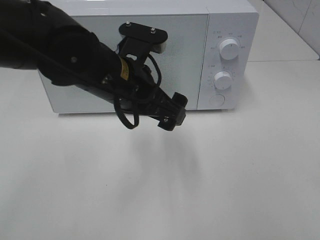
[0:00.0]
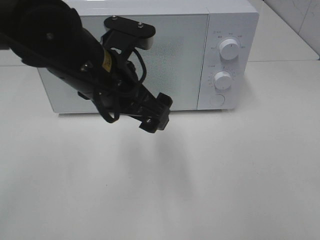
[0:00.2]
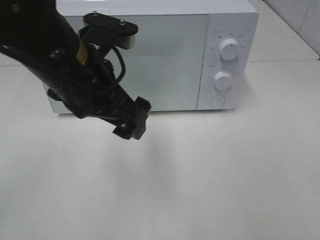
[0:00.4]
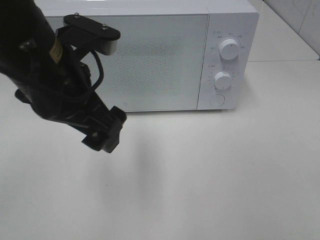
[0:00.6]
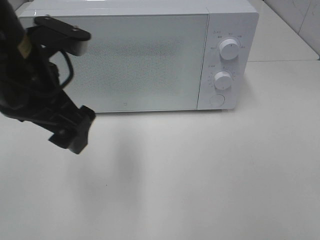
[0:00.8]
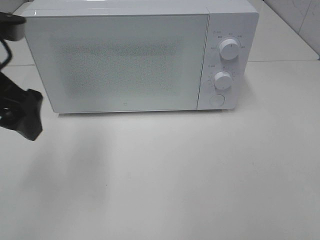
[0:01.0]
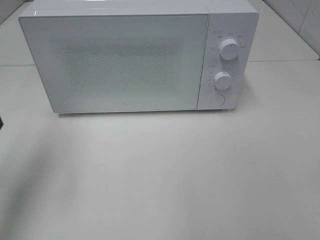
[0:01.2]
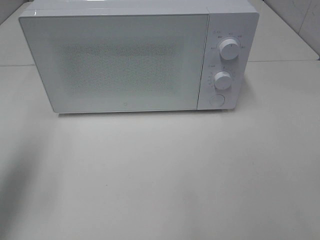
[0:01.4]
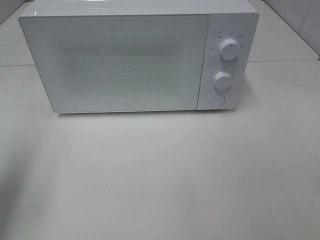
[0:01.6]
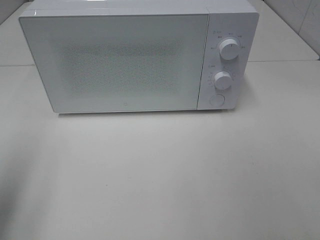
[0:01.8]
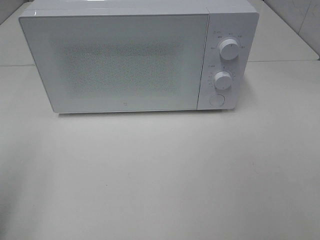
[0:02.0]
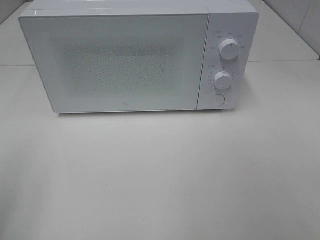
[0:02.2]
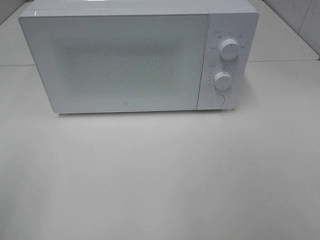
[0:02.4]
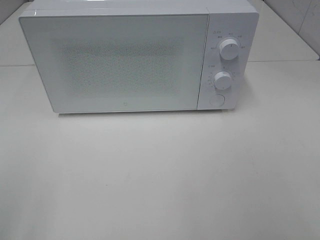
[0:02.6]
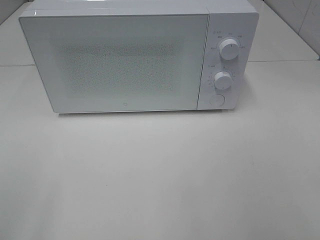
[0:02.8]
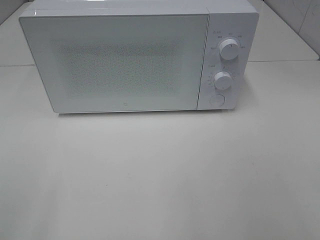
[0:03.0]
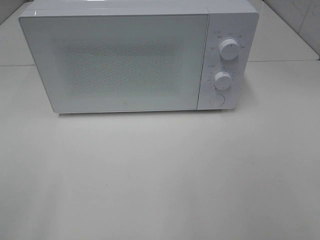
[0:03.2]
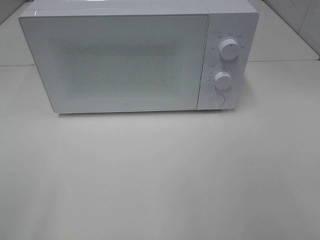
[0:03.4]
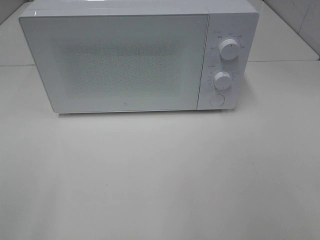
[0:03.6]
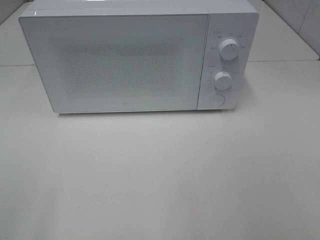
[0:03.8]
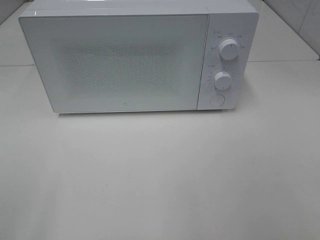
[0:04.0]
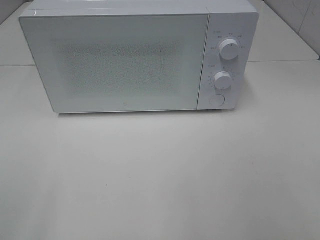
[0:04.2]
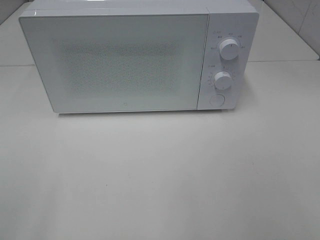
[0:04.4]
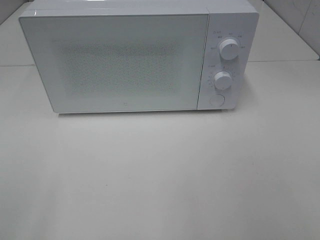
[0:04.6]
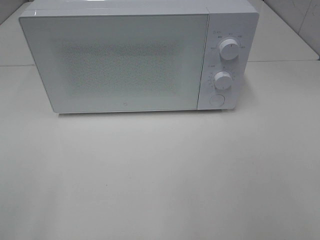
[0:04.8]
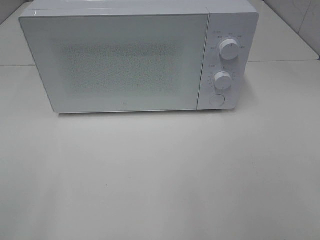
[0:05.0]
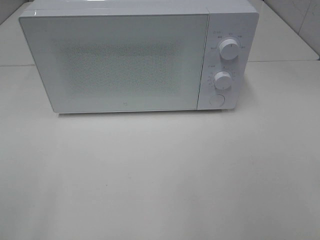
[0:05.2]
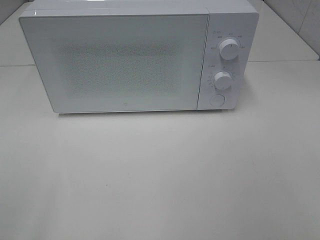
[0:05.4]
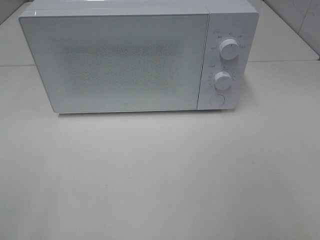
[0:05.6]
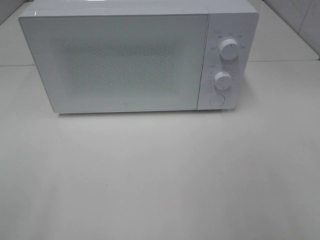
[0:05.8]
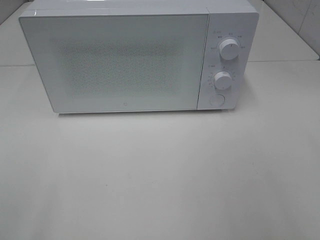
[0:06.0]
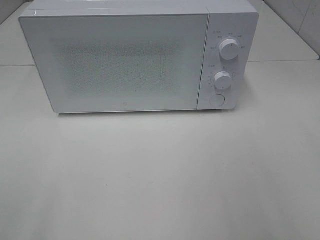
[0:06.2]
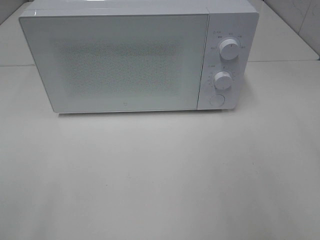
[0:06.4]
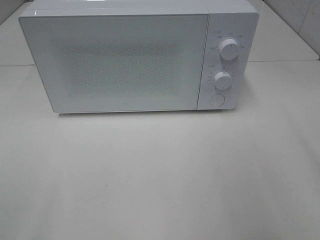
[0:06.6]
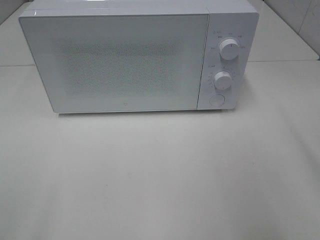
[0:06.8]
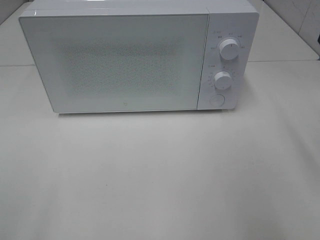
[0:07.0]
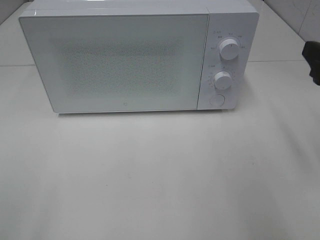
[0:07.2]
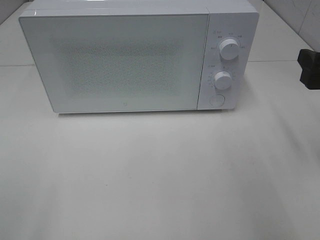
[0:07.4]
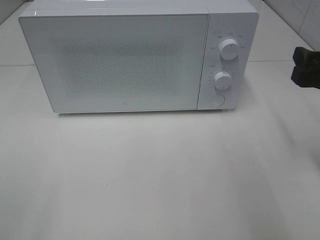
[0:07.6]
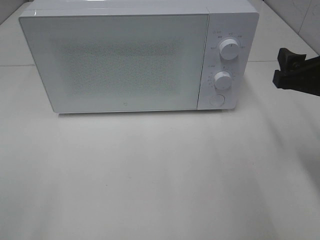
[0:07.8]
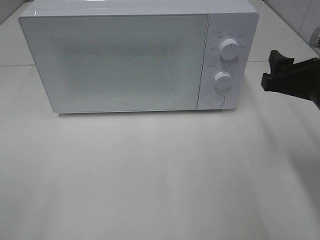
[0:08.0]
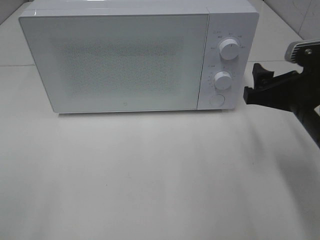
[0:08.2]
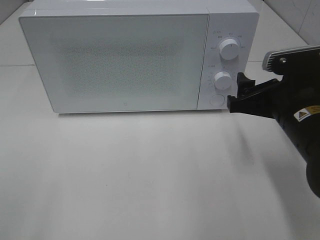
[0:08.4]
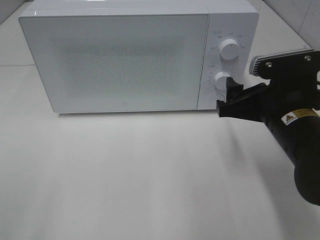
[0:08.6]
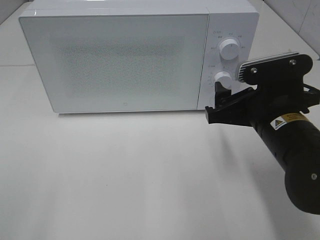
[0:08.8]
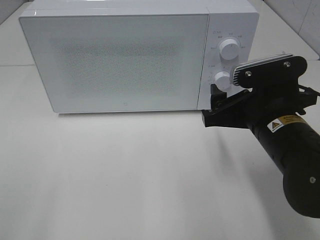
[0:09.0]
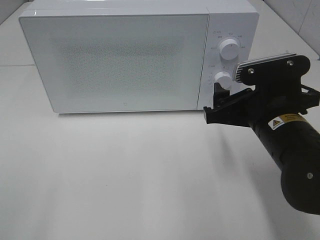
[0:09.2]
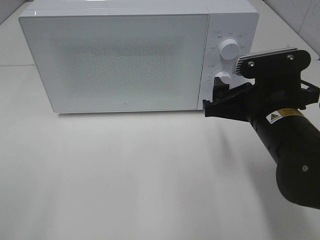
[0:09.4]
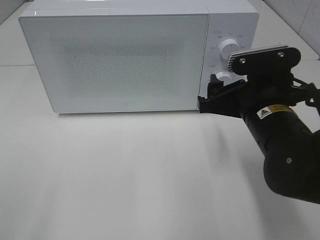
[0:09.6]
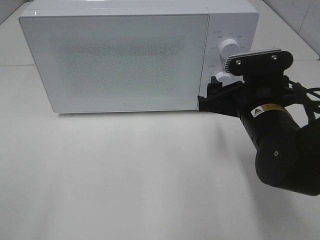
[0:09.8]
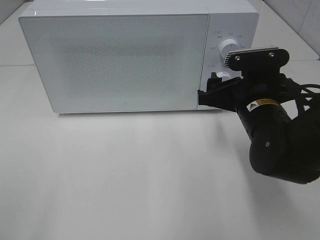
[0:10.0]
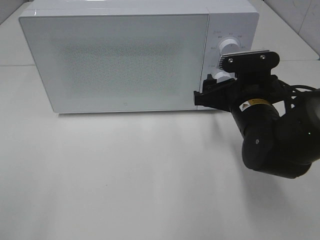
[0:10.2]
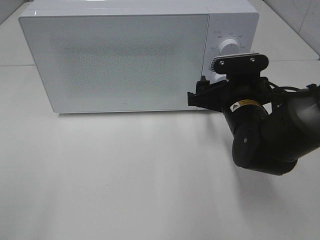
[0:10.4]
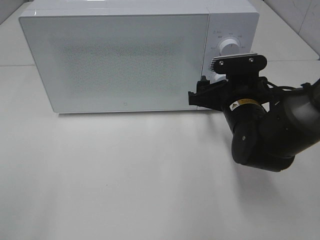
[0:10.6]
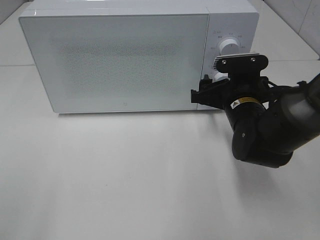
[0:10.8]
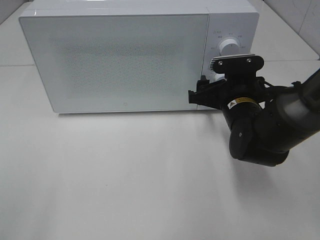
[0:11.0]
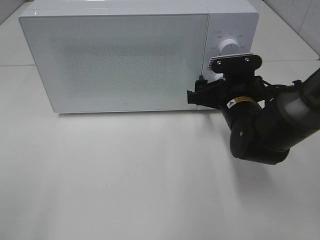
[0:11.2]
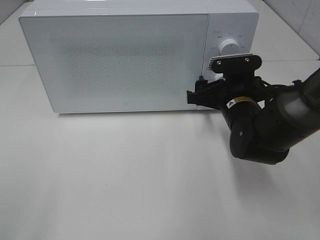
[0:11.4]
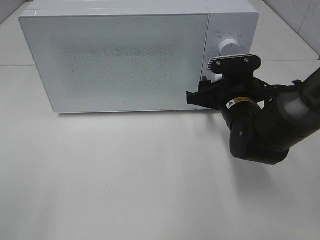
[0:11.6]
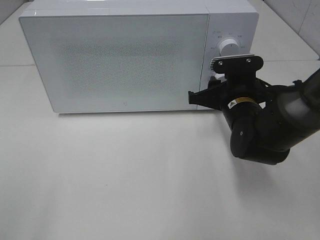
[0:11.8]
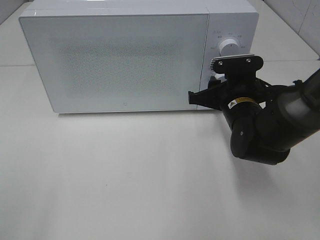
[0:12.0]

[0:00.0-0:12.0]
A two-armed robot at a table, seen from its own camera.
Task of the whole recording: Heat the burger.
0:00.0 to 0:01.6: The left gripper travels to the left by about 25 cm.
0:01.6 to 0:03.0: The left gripper heads backward, covering approximately 20 cm.
0:03.0 to 0:04.4: Neither gripper changes place.
0:06.0 to 0:07.6: The right gripper travels forward and downward by approximately 20 cm.
0:07.6 to 0:09.0: The right gripper goes roughly 15 cm to the left and downward.
0:09.0 to 0:10.4: The right gripper heads forward, covering roughly 10 cm.
0:10.4 to 0:12.0: The right gripper closes.

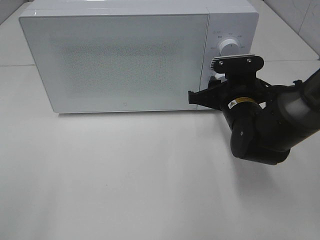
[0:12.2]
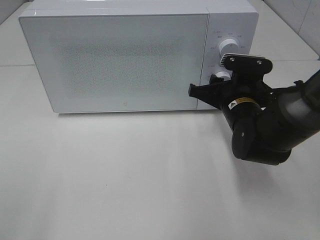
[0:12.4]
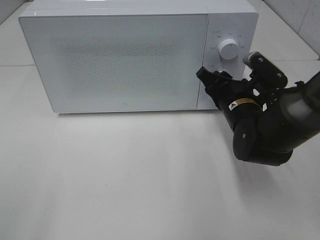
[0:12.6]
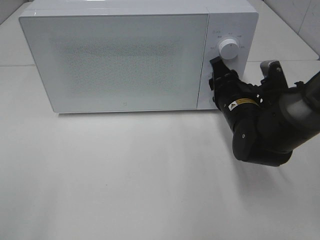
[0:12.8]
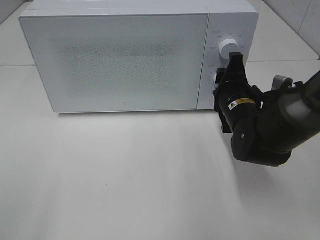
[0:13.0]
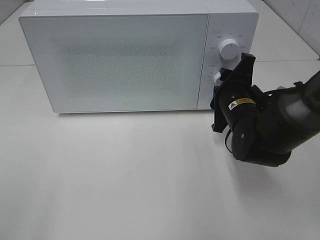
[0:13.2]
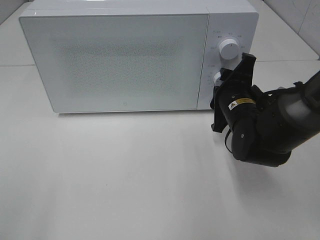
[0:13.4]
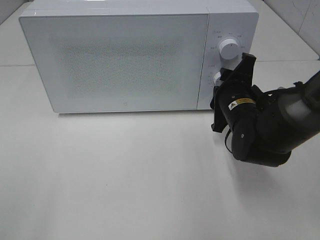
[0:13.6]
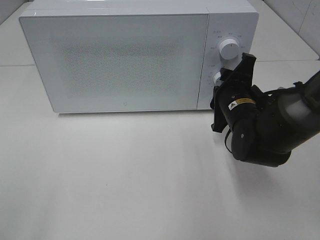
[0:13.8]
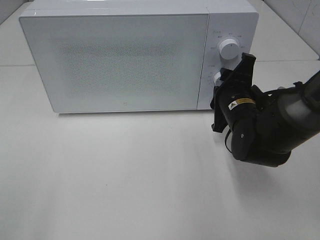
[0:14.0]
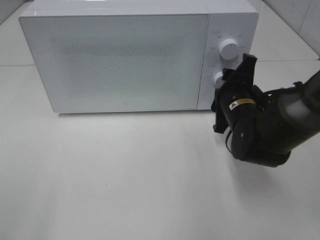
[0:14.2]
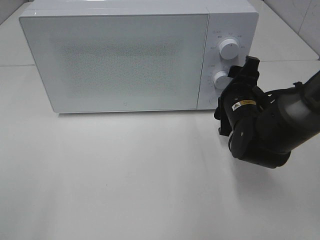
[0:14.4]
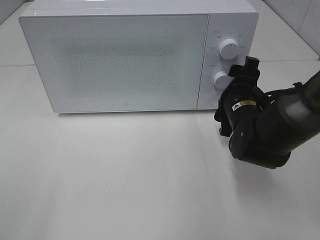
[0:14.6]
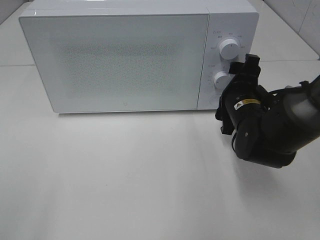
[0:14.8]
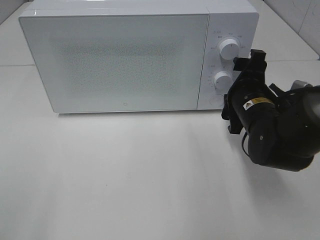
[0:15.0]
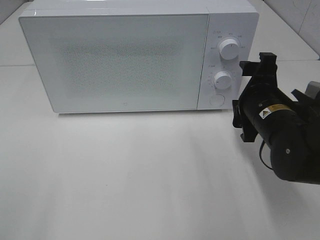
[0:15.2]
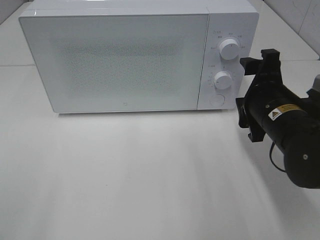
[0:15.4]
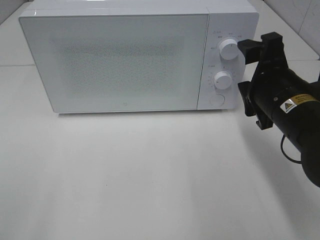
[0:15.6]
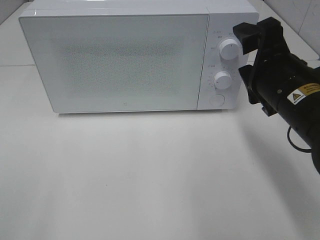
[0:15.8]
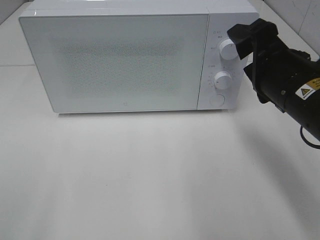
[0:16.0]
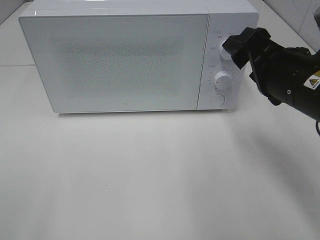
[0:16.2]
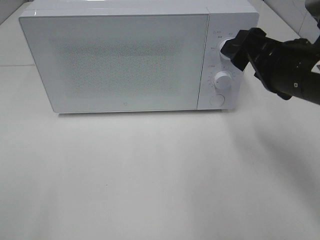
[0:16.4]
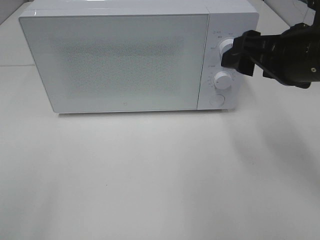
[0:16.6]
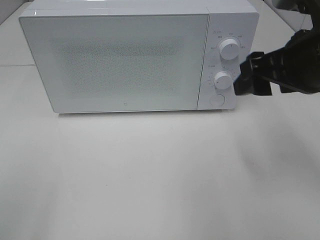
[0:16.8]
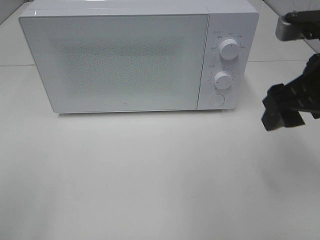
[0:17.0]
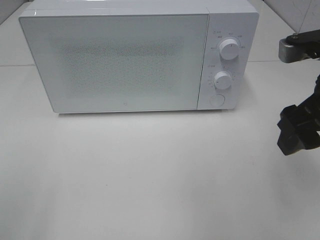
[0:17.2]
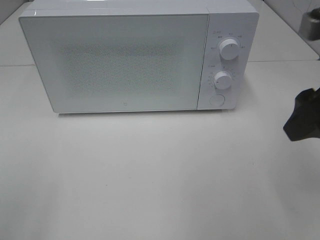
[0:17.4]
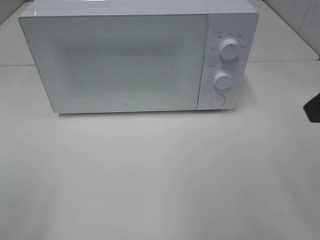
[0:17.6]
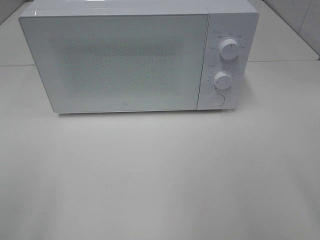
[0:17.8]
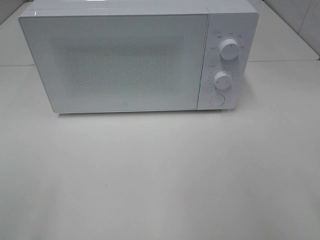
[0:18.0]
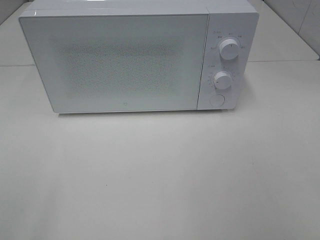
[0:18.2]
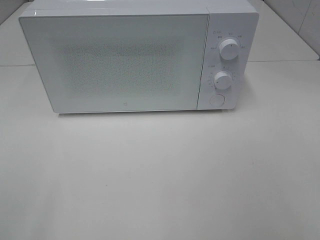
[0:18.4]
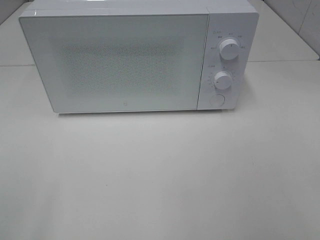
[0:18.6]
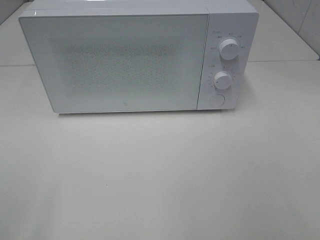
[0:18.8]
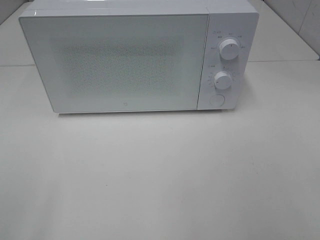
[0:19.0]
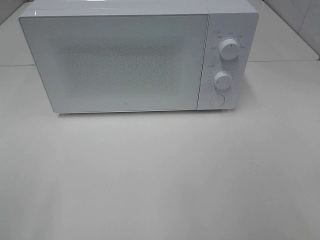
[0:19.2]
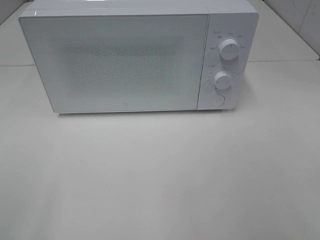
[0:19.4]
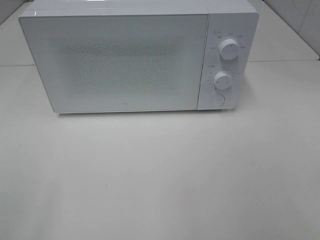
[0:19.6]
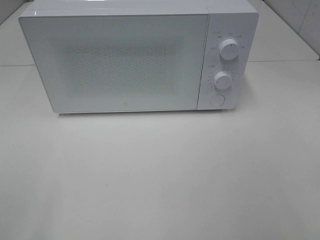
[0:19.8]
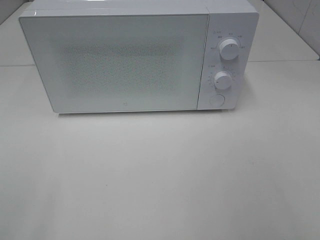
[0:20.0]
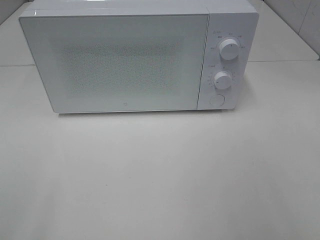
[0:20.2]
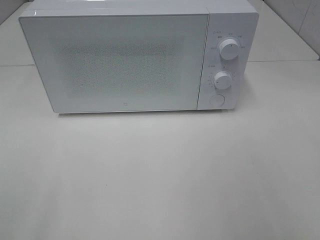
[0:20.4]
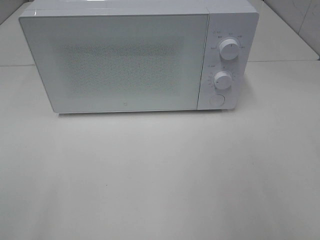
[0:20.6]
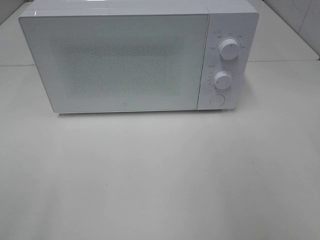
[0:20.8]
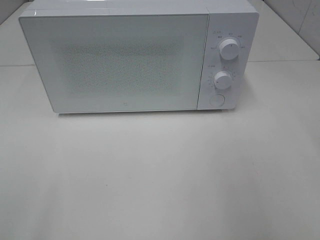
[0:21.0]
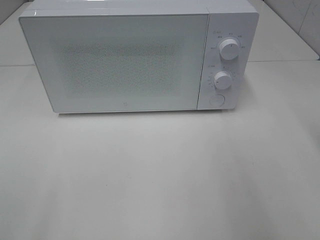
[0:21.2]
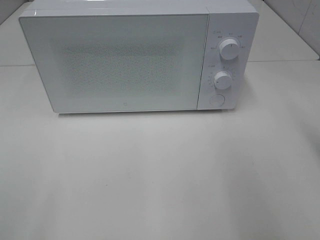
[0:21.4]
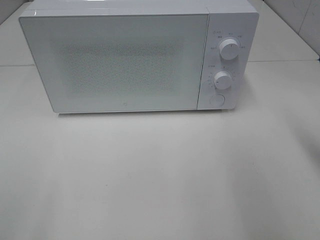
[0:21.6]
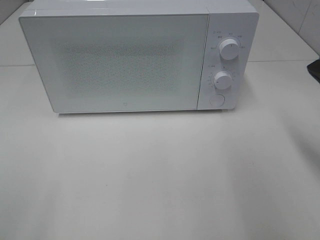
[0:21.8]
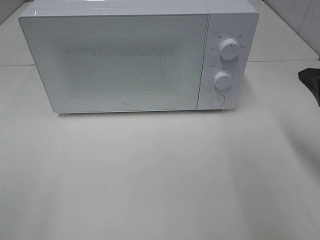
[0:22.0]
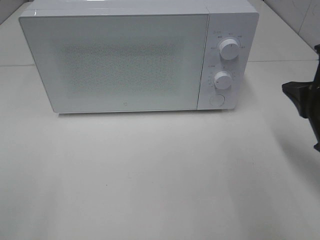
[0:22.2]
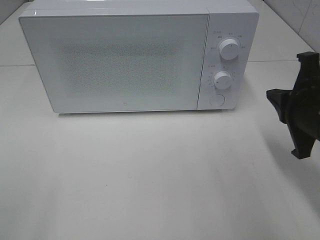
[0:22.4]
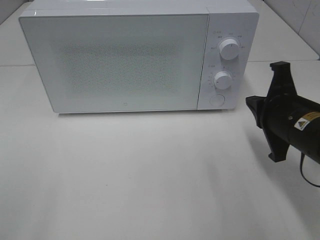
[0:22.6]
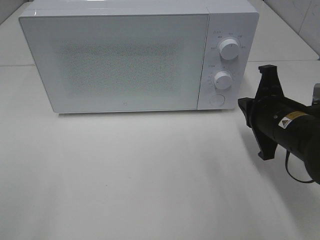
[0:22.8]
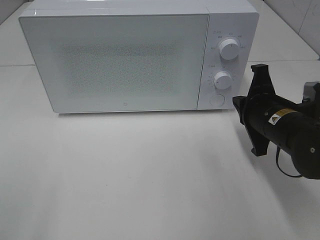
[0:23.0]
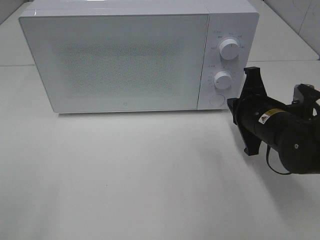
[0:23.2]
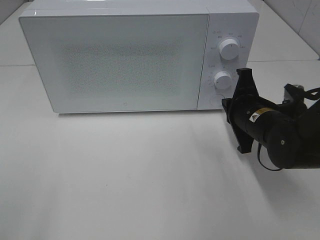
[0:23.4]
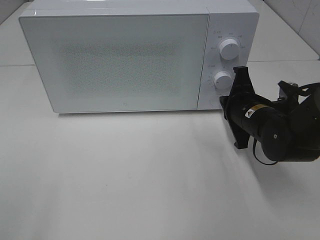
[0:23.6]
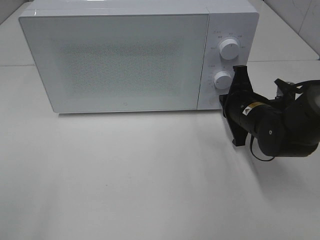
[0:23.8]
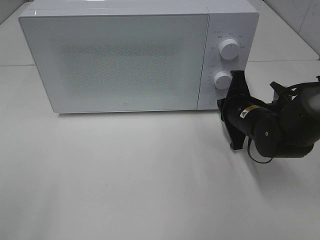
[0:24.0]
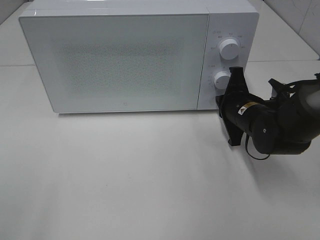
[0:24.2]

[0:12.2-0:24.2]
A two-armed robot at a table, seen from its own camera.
Task of the whole recording: Heat the burger.
Step, 0:12.2 to 0:14.2: Right hand: twist timer button.
0:13.8 to 0:15.2: The right gripper moves approximately 5 cm, and opens its fingers.
0:15.2 to 0:16.6: The right gripper heads upward, covering approximately 10 cm.
0:16.6 to 0:18.2: The right gripper moves backward and to the right, some 20 cm.
0:21.2 to 0:22.6: The right gripper travels downward, to the left and forward by approximately 15 cm.
0:22.6 to 0:24.2: The right gripper travels forward and downward by about 10 cm.
